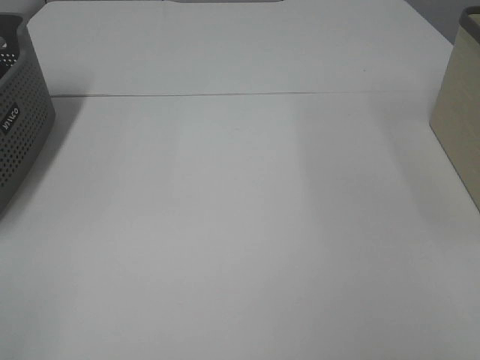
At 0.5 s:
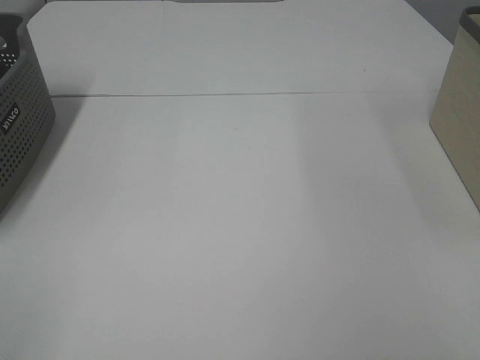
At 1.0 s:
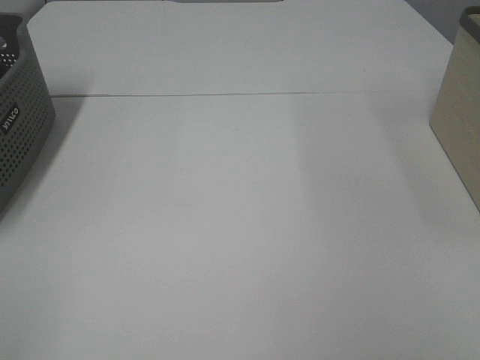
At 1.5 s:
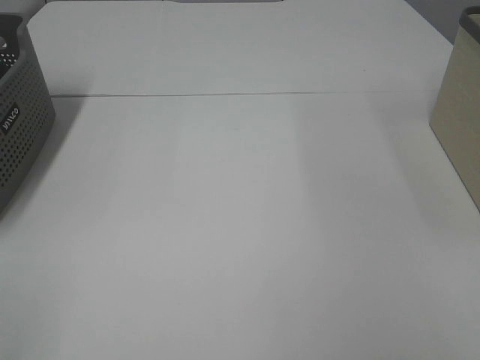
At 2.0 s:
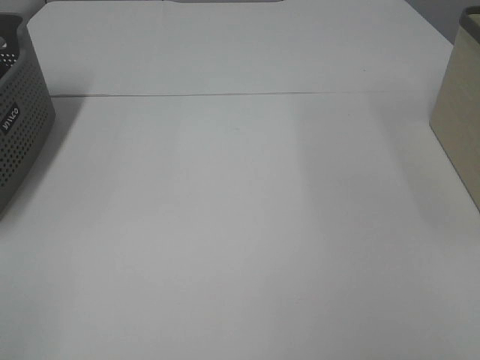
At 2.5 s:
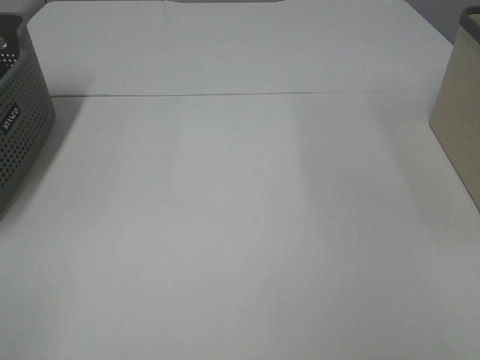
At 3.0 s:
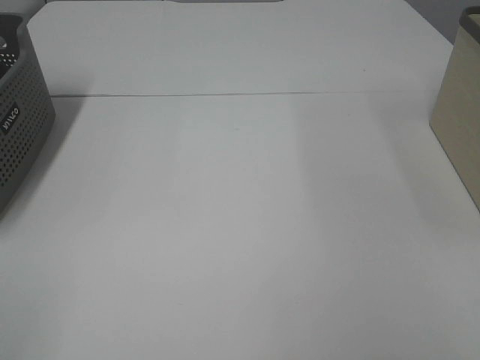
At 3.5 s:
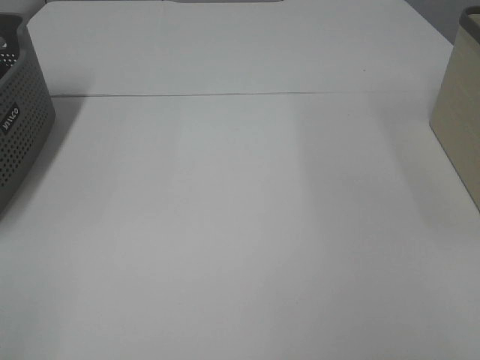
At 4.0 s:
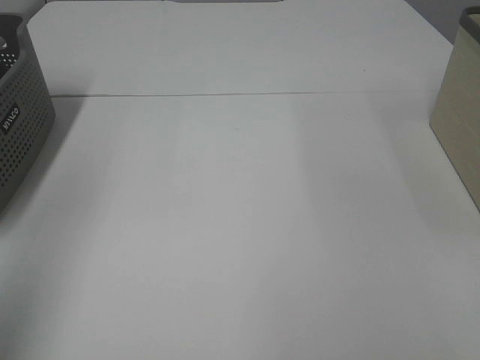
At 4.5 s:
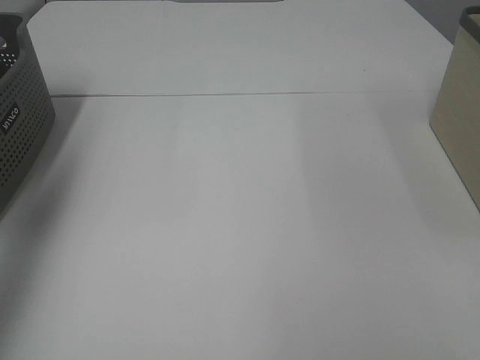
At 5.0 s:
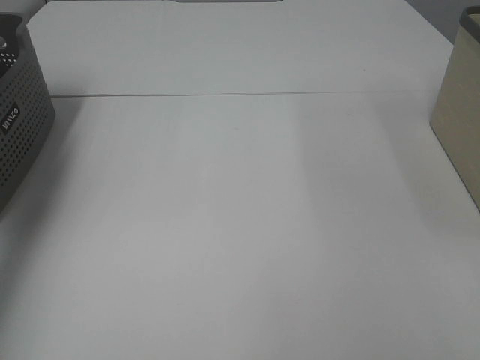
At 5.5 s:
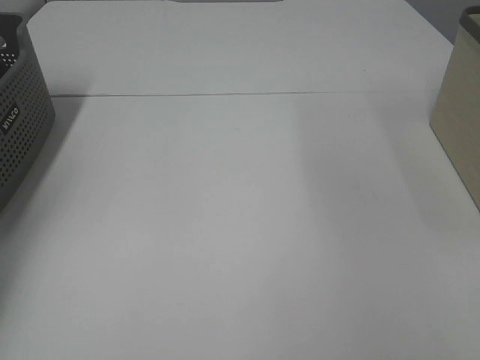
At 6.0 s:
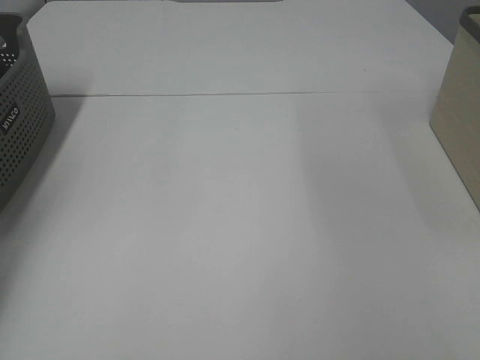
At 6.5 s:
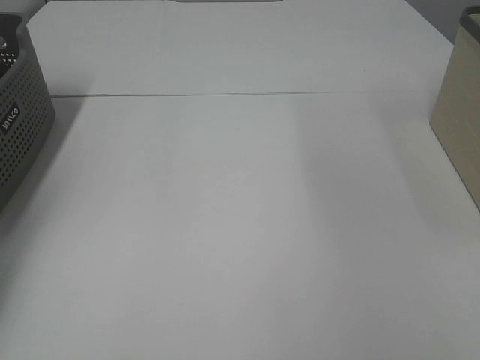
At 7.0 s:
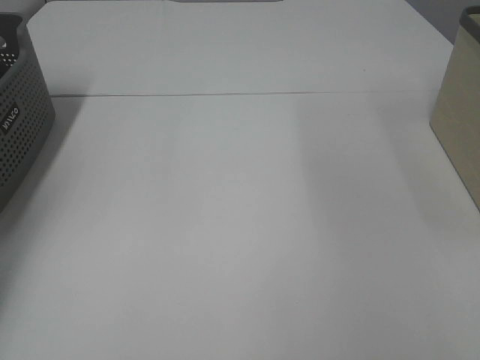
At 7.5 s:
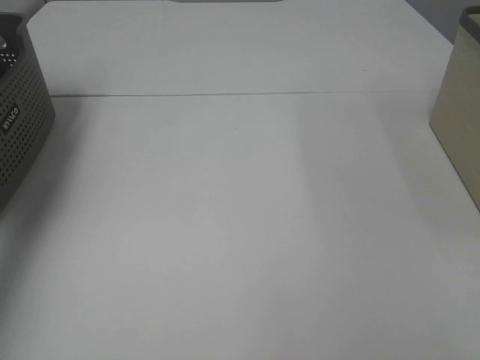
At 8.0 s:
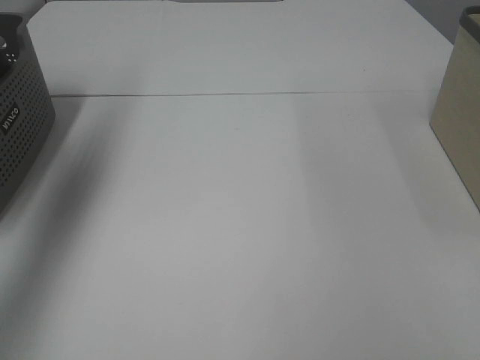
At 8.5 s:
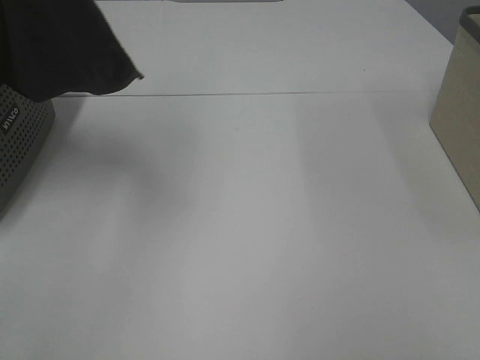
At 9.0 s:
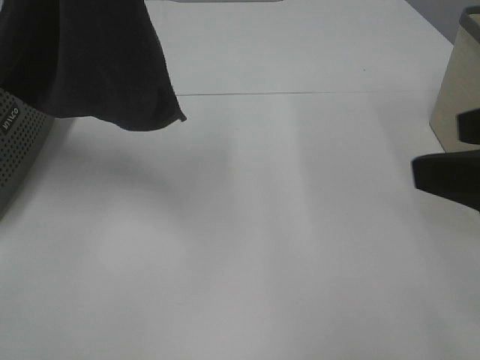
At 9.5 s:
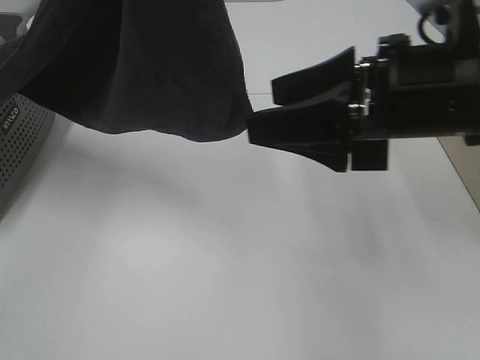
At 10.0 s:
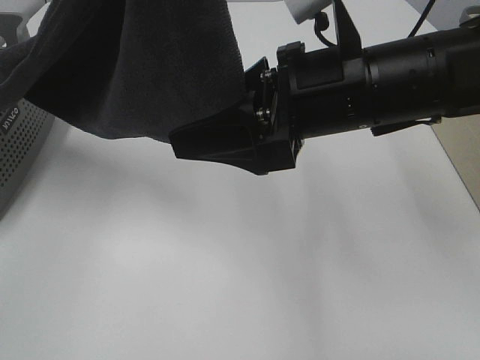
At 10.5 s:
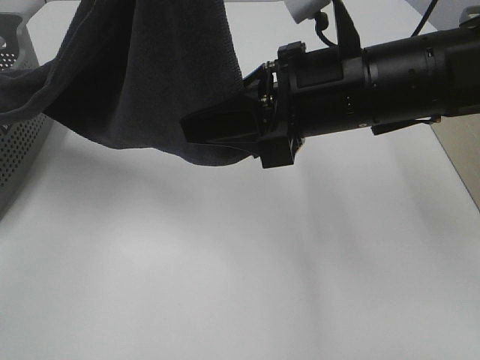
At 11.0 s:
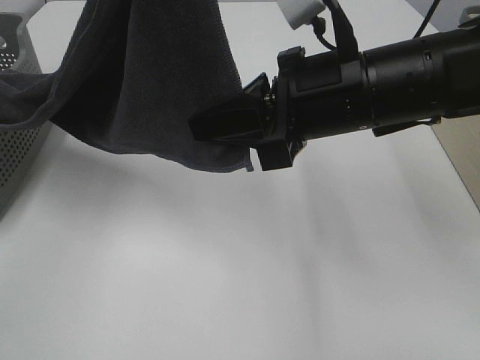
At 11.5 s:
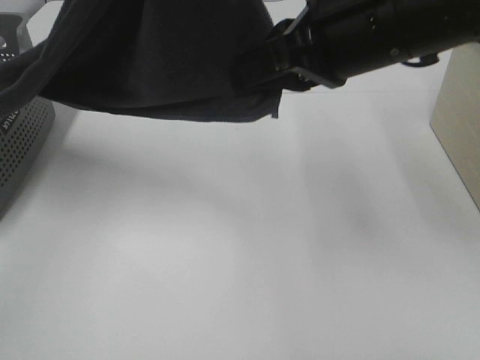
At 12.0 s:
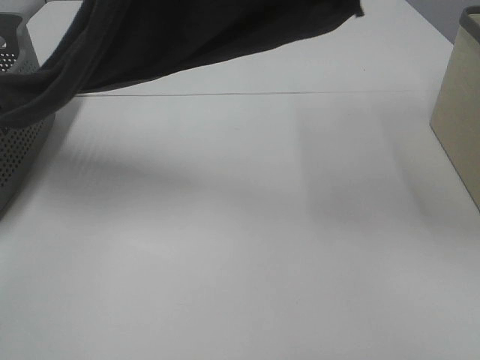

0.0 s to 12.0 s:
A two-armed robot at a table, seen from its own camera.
Task of the whole recording: Remove the towel and place it.
0.0 to 2.0 s: The two grippers keep their place.
2.0 to 4.0 s: The left gripper is displaced upward and forward by approximately 15 cm.
4.0 to 6.0 s: The left gripper goes about 40 cm forward and downward.
6.0 to 8.0 s: The left gripper heads upward, covering some 30 cm, and closes up.
8.0 to 10.0 s: The left gripper heads to the right and backward, covering approximately 25 cm. The right gripper shifts about 30 cm forward and to the left.
10.0 to 12.0 s: The right gripper moves upward, approximately 15 cm, and closes.

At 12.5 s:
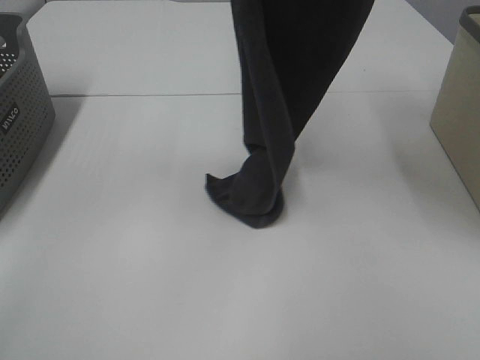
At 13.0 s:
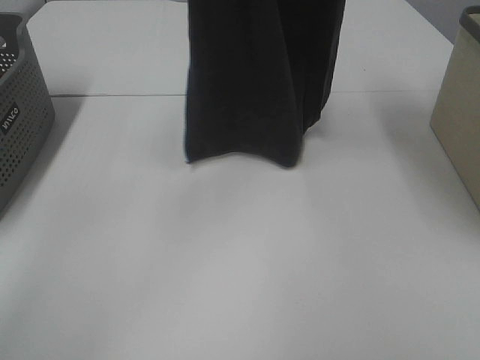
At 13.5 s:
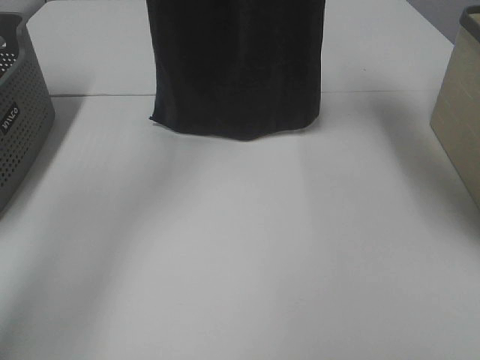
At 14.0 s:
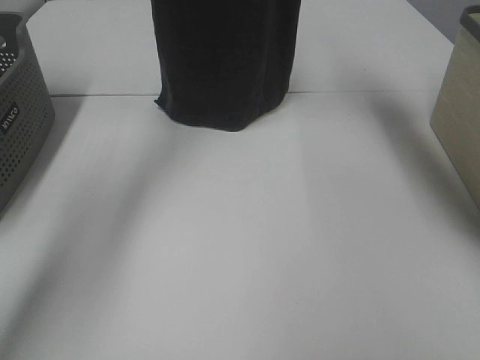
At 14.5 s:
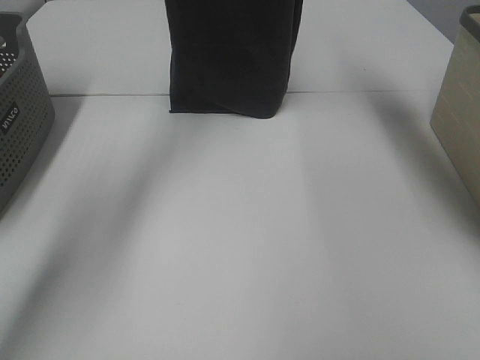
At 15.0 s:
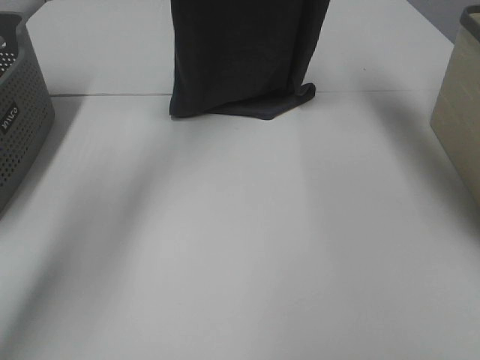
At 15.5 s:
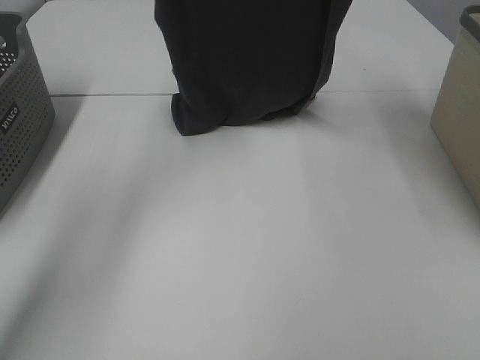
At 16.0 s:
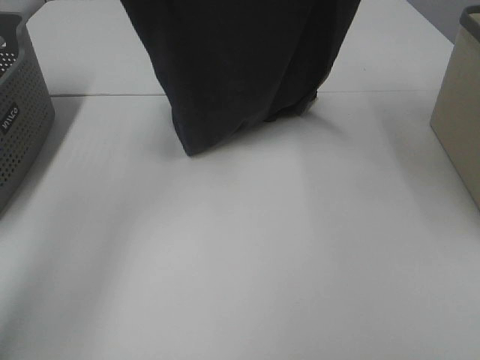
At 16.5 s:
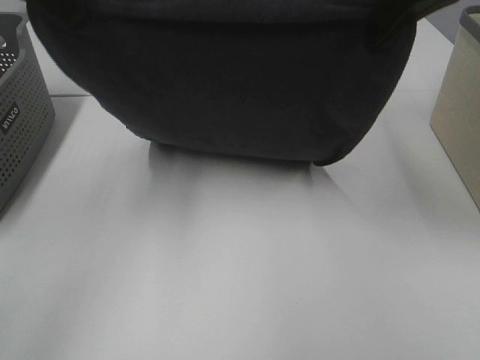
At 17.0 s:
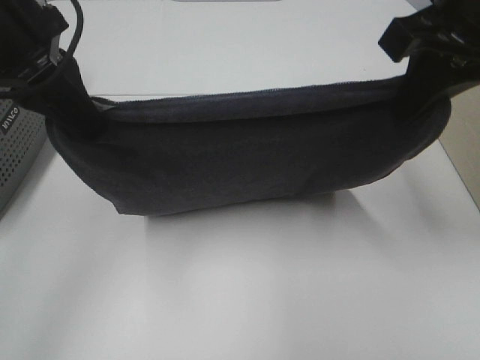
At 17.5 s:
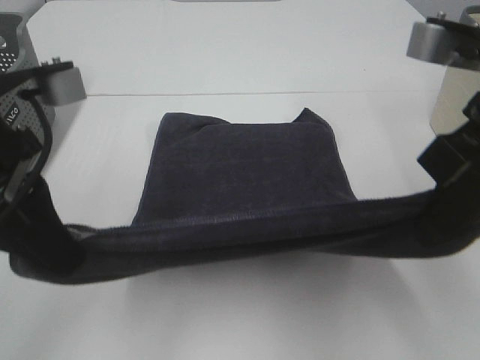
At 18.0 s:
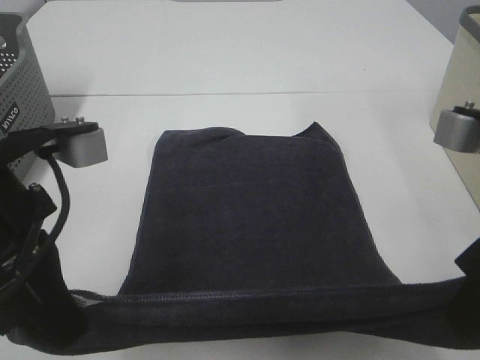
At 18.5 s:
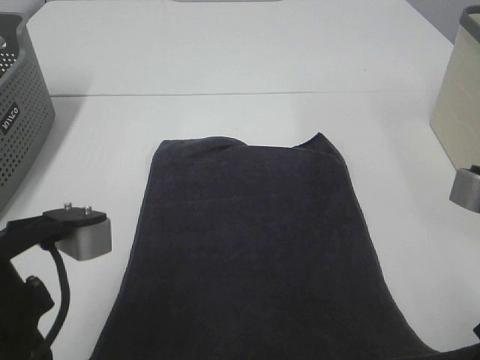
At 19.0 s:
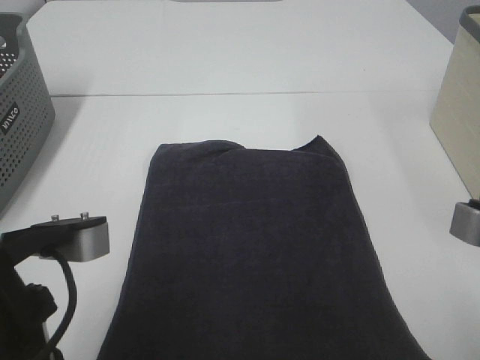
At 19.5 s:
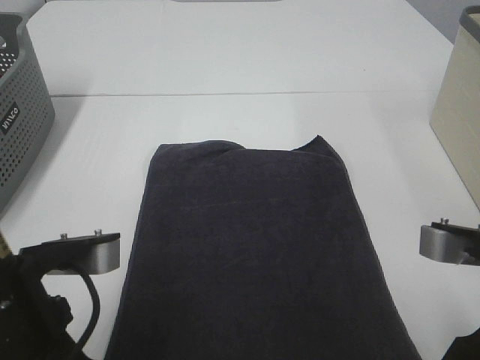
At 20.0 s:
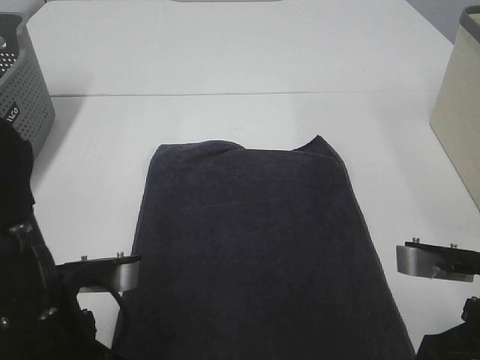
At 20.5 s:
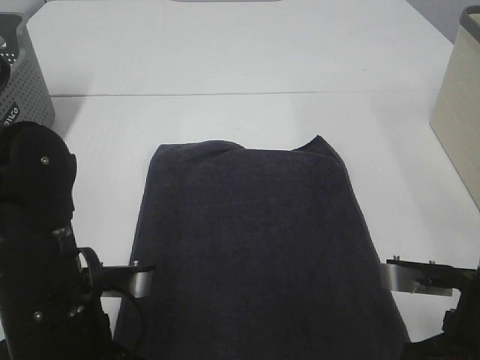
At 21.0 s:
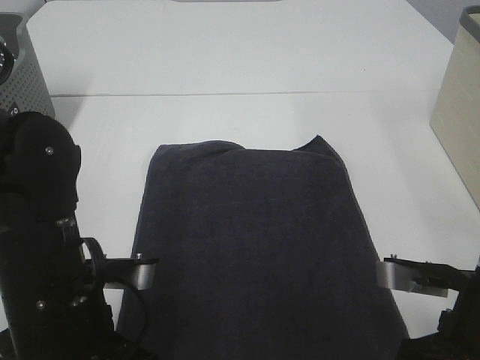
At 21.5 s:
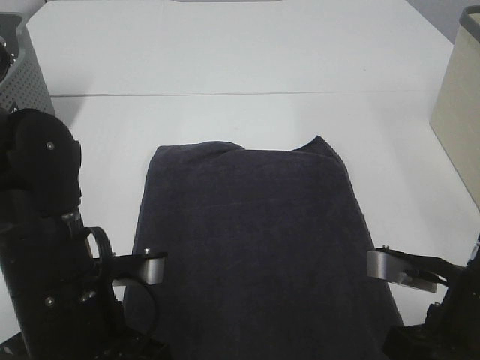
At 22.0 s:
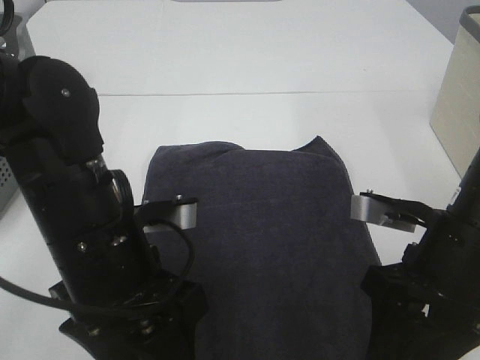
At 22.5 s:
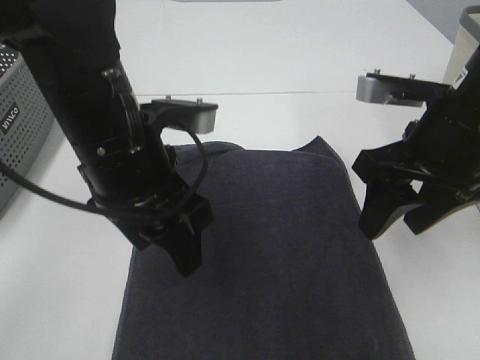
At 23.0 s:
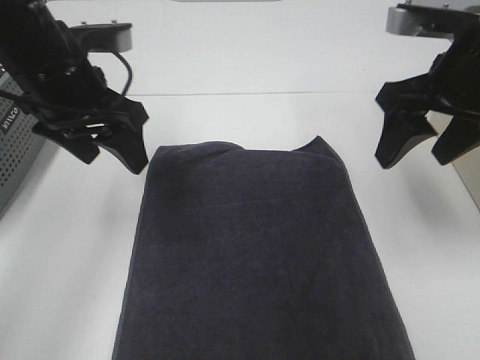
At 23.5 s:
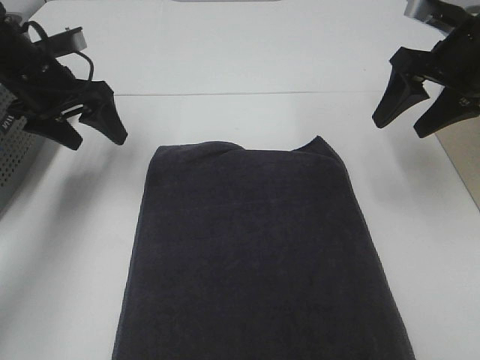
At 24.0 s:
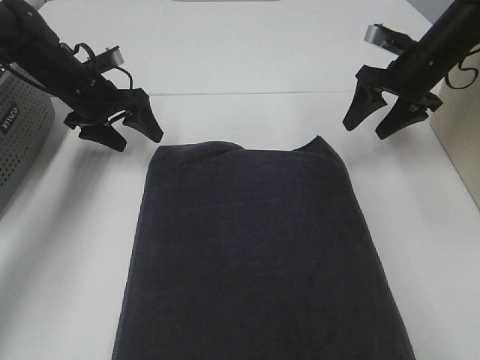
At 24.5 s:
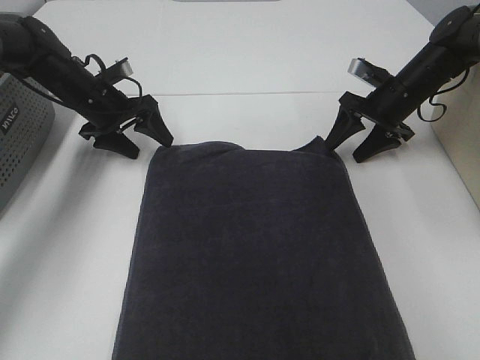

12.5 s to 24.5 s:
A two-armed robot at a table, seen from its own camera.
Task of the whole recording: Remove the towel and place it.
Step, 13.0 to 17.0 s: Left hand: spread the grey towel flat on the table.
Step, 13.0 to 17.0 s: Right hand: spread the grey towel flat on the table.
12.5 to 14.5 s: The left gripper travels forward and downward by approximately 20 cm; the right gripper shifts some 20 cm forward.
14.5 to 16.5 s: The left gripper shifts about 20 cm backward. The right gripper travels backward and downward by roughly 20 cm.
16.5 to 18.5 s: Both grippers move backward and downward, approximately 25 cm.
18.5 to 20.5 s: Both grippers travel together downward, about 10 cm.
20.5 to 22.5 s: Both grippers travel together forward and upward, about 15 cm. The right gripper opens up. Meanwhile the left gripper opens its fingers.
22.5 to 24.5 s: The left gripper travels forward, to the left and downward by some 30 cm; the right gripper travels forward and downward by approximately 30 cm.

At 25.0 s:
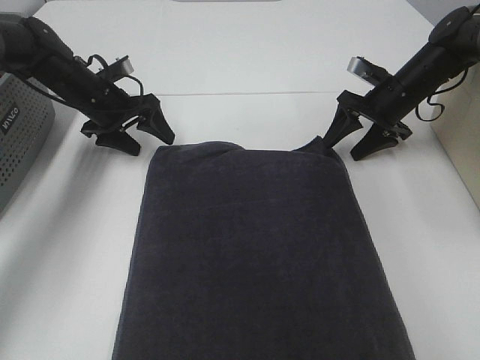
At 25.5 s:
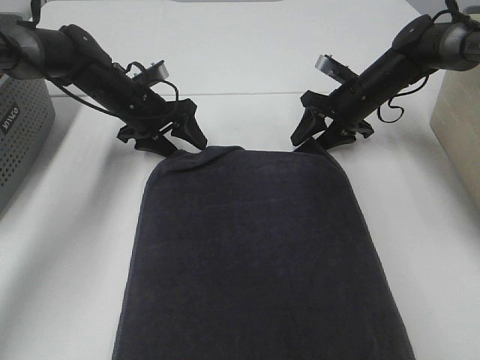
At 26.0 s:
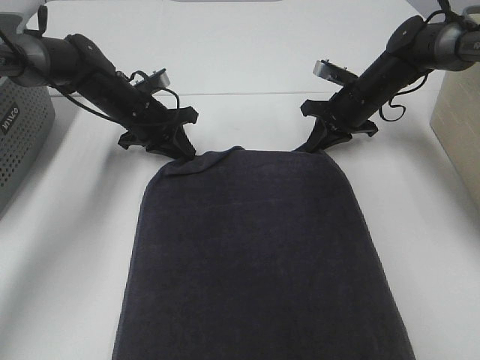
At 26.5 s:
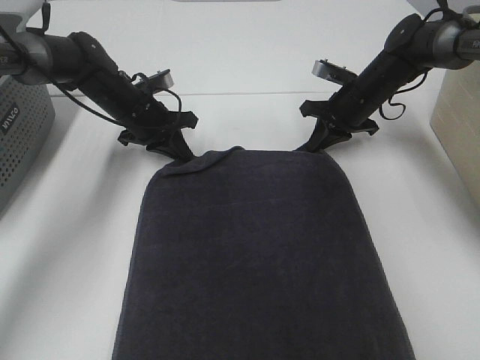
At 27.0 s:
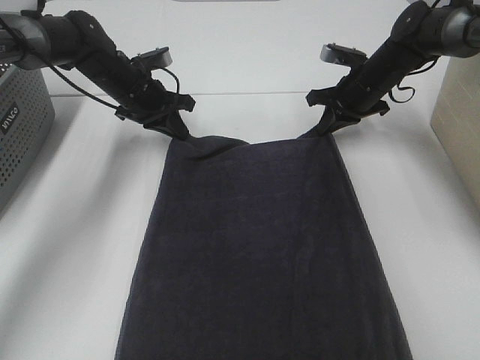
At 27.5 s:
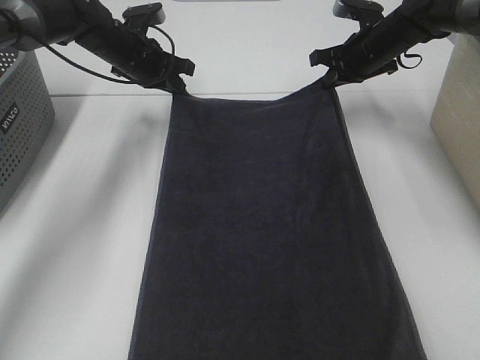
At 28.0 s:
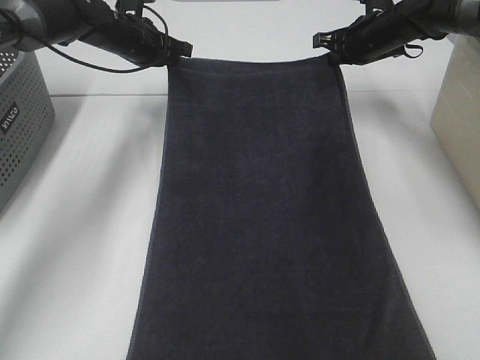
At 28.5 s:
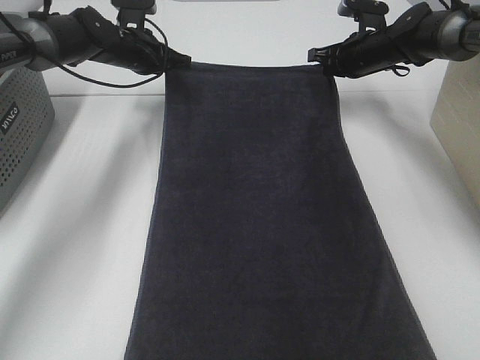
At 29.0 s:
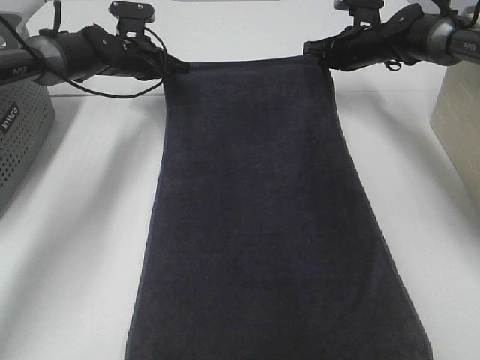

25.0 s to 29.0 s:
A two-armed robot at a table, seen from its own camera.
Task of the whole recording: Remove the towel and place it.
25.0 to 27.0 s: The right gripper shifts by roughly 5 cm, and closes its fingers; the left gripper shifts roughly 5 cm to the right, and closes up.
27.0 to 29.0 s: Both grippers move forward, some 5 cm.
